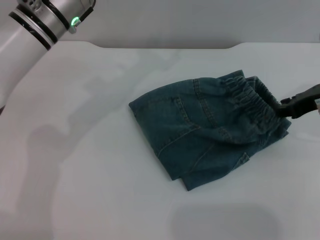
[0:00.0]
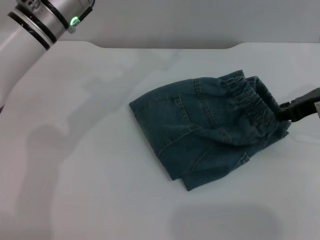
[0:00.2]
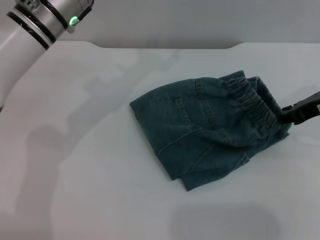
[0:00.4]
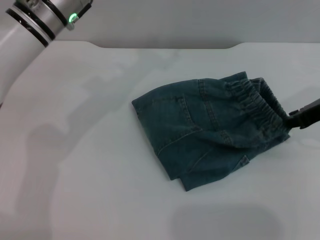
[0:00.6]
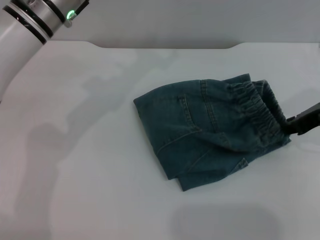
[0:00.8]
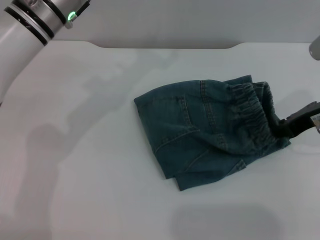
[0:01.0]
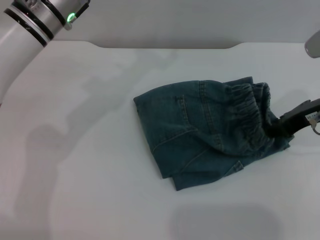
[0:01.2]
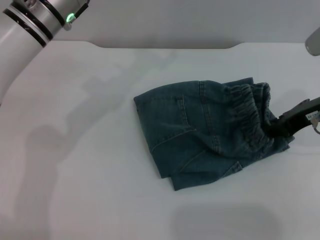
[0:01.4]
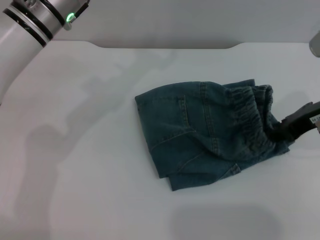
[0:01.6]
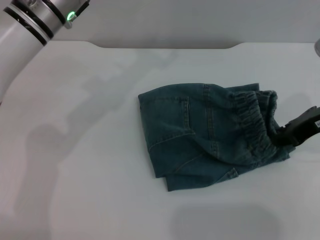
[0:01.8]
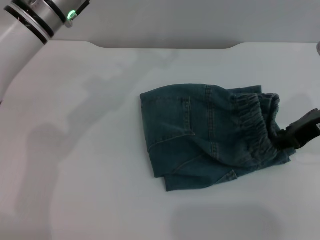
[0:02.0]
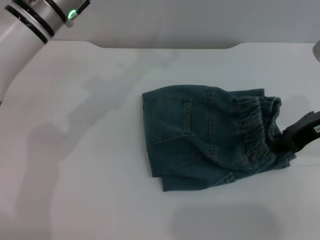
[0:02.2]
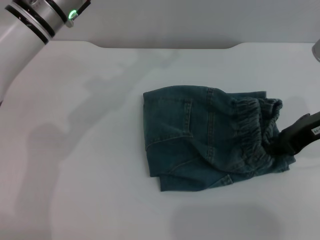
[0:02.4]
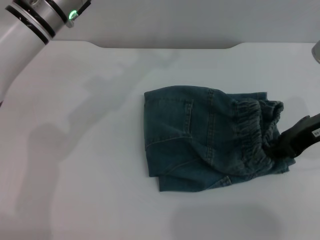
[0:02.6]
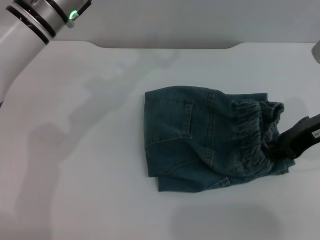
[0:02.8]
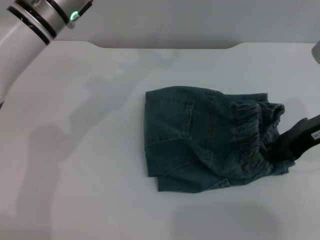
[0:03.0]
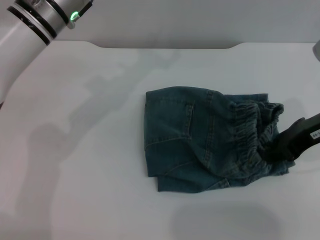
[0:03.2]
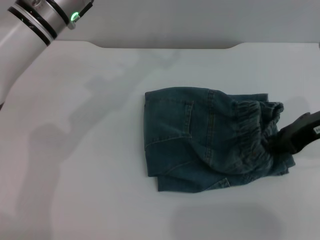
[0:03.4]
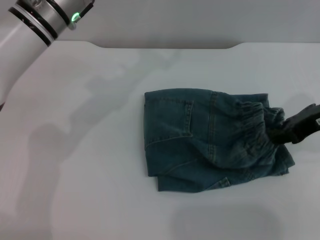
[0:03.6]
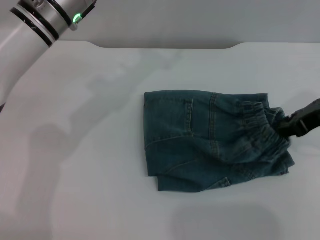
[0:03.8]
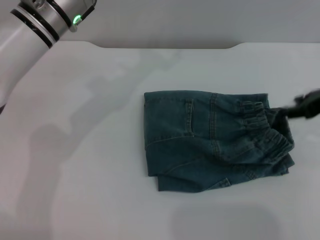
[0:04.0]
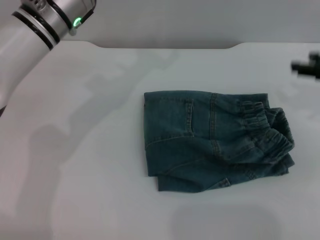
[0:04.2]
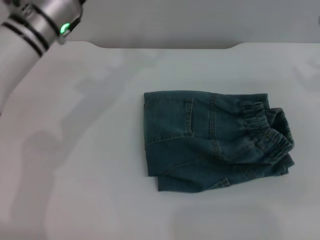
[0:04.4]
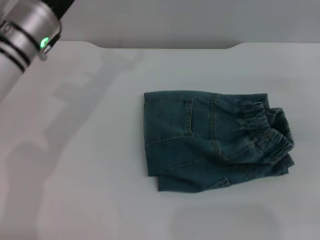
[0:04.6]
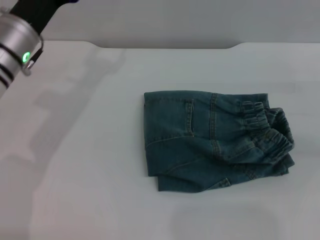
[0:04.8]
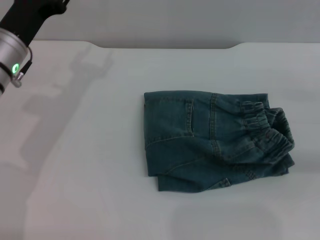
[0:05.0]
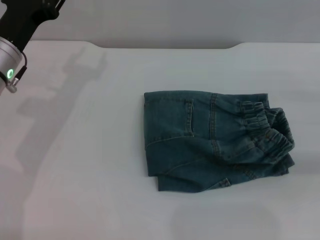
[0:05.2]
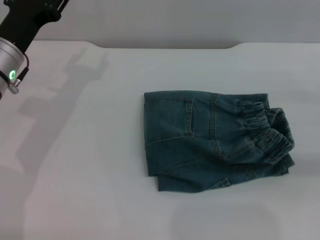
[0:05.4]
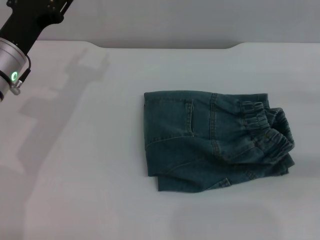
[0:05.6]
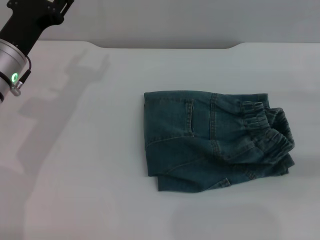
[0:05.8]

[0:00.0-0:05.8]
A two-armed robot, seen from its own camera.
Step, 0:00.0 to 0:04.0: Place the folded trousers onto the center area with the right grippers.
0:00.0 to 0:01.4: The grippers make only small movements.
0:01.4 to 0:02.8: The grippers make only small movements.
0:02.8 to 0:04.4: The right gripper travels to the right by roughly 10 cm, and opens up.
0:04.4 to 0:05.8: The left gripper heads to the left and downward, covering approximately 10 cm.
